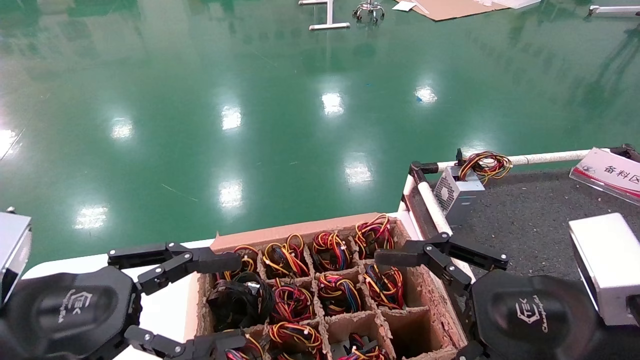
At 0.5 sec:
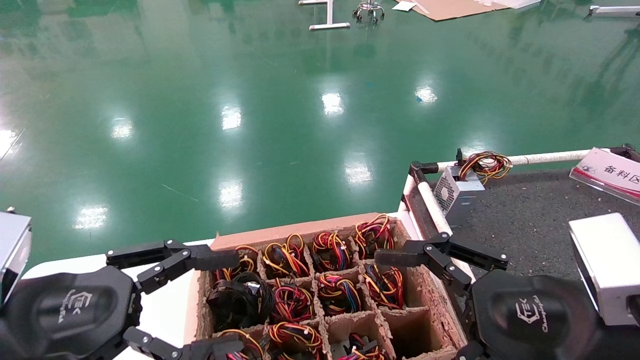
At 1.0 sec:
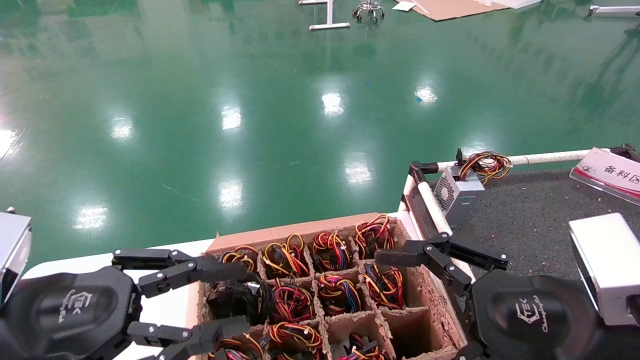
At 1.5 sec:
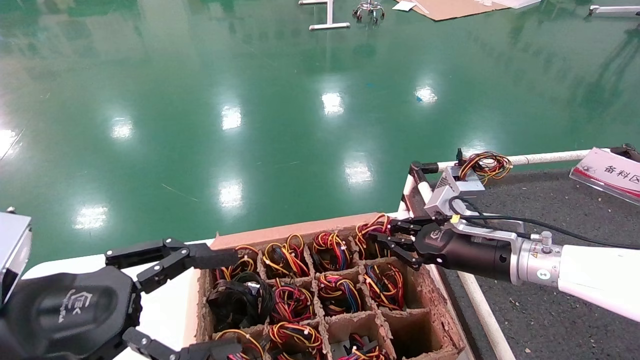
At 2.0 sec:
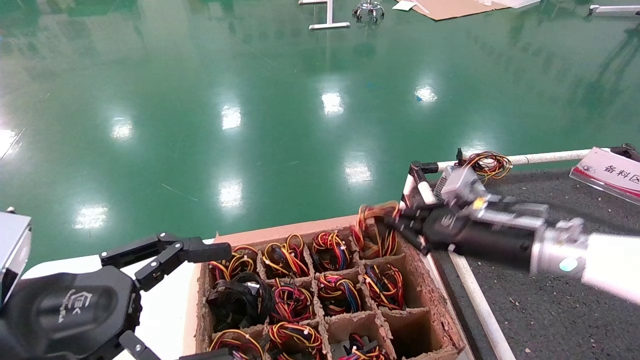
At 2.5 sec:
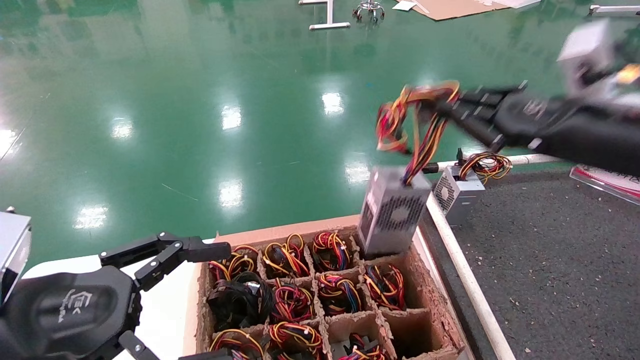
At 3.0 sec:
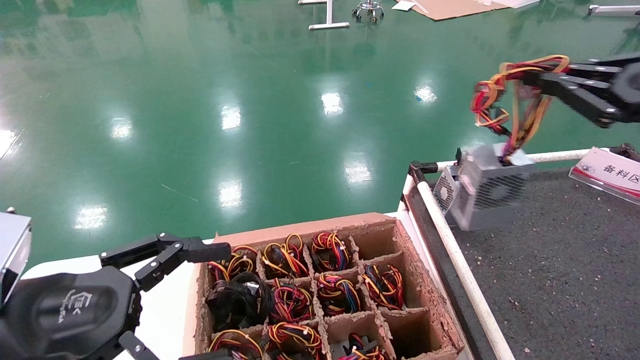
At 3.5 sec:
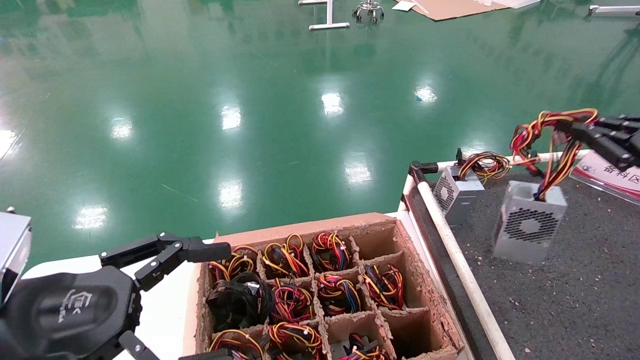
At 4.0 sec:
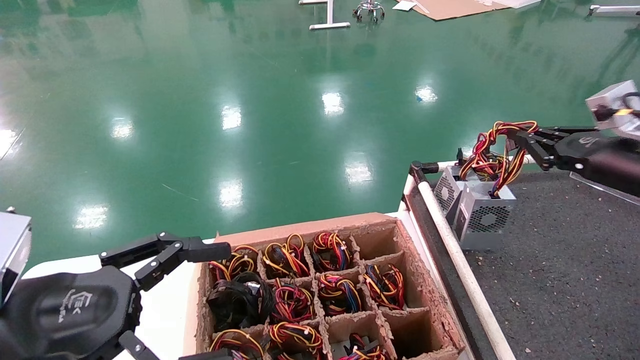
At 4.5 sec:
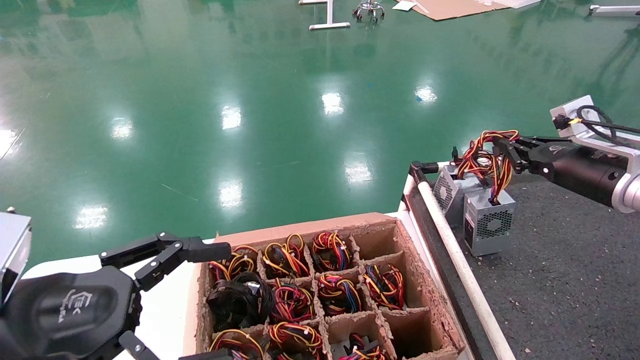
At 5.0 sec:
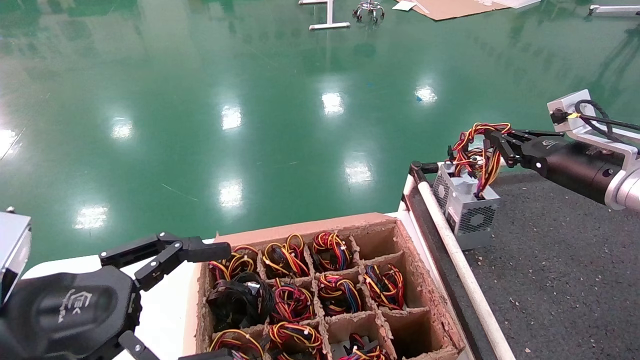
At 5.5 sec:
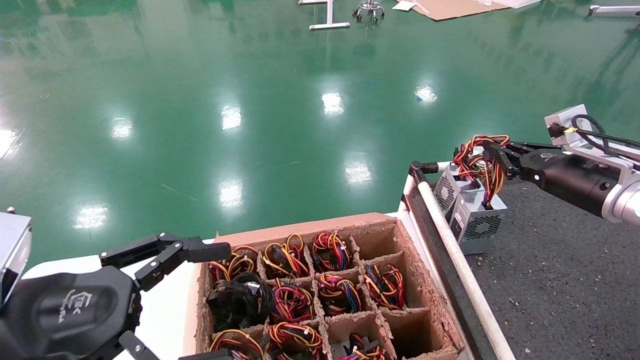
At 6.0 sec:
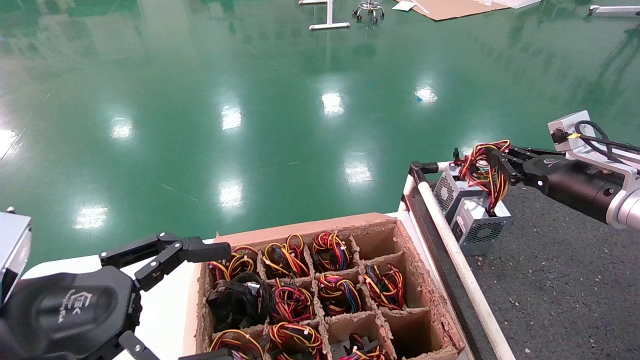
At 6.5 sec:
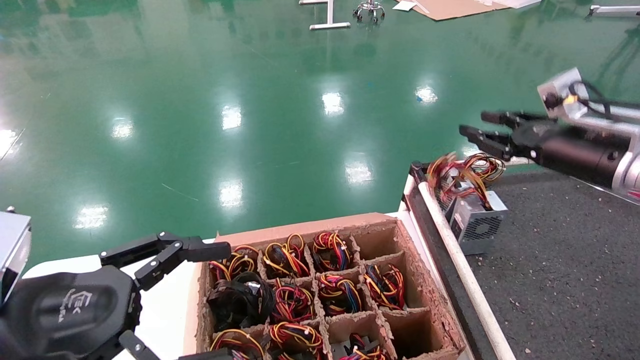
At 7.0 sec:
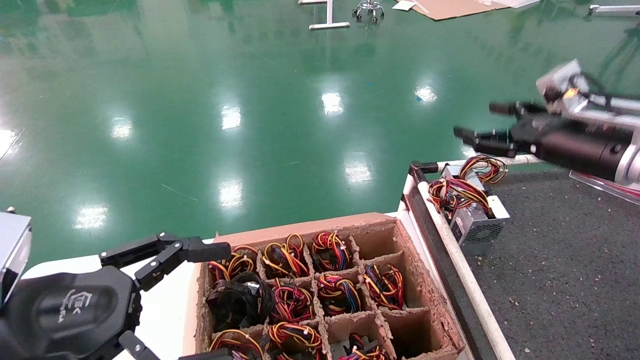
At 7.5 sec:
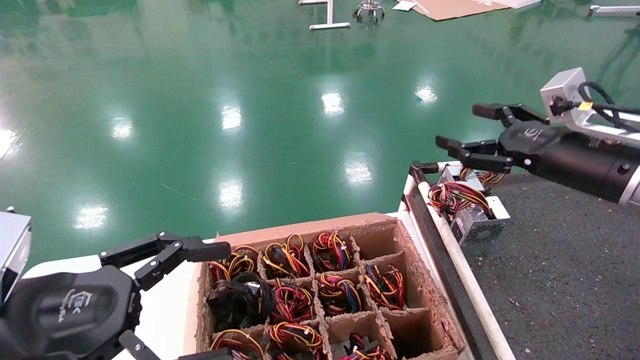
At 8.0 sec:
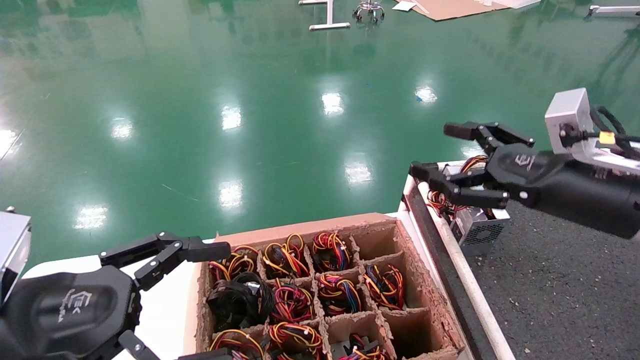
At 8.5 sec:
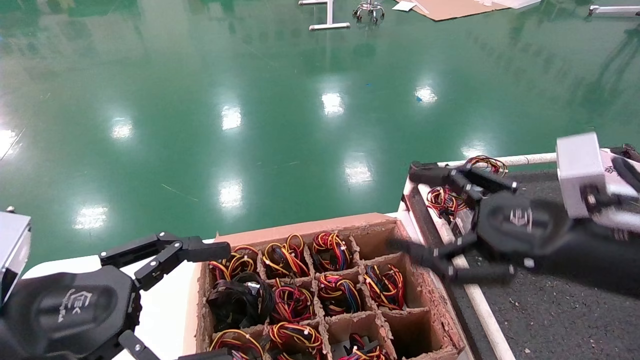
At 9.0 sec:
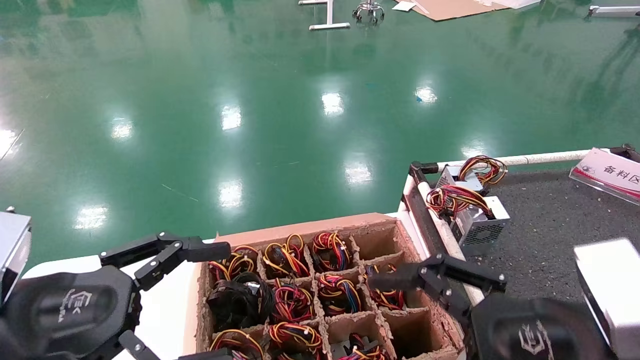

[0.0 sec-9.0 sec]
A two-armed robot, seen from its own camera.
Step, 2.0 sec to 3.5 sec: Grab and lift the power supply from the large box.
Step, 4.0 sec to 7.5 sec: Place the power supply on the operating table.
0.0 sec to 2.0 sec: The left gripper closes up. The right gripper goes some 20 cm forward.
2.0 sec to 4.5 sec: The left gripper opens its fingers; the right gripper heads upward and to the right, covering about 15 cm, and closes.
4.5 sec to 7.0 sec: The right gripper heads forward, downward and to the right, covering some 15 cm.
7.0 sec to 9.0 sec: The right gripper ends up approximately 5 cm from where it was, and opens.
